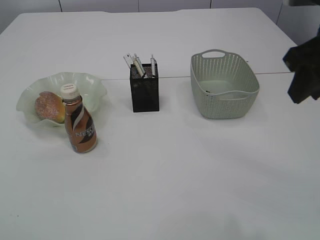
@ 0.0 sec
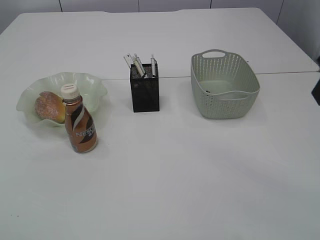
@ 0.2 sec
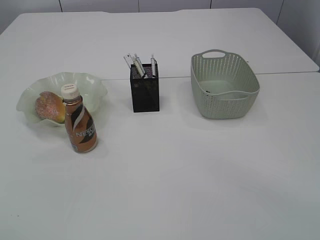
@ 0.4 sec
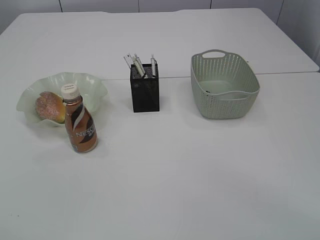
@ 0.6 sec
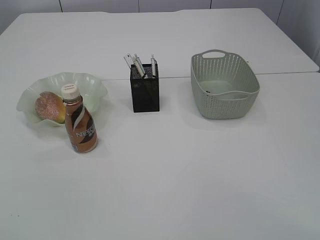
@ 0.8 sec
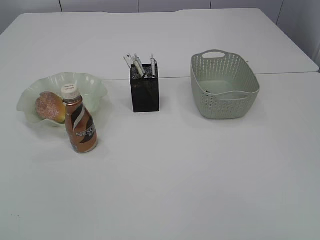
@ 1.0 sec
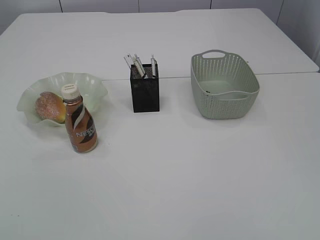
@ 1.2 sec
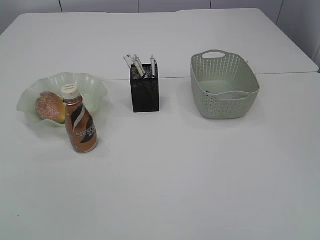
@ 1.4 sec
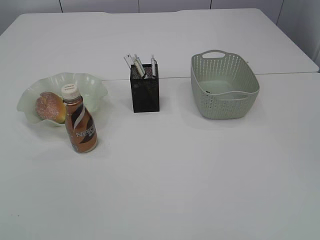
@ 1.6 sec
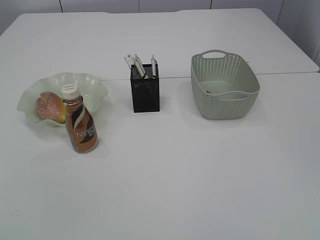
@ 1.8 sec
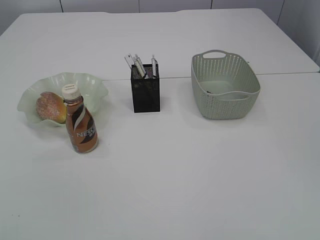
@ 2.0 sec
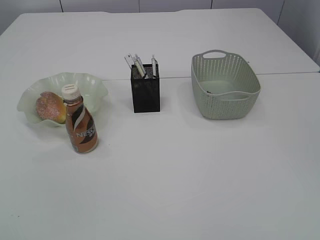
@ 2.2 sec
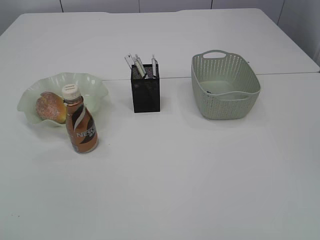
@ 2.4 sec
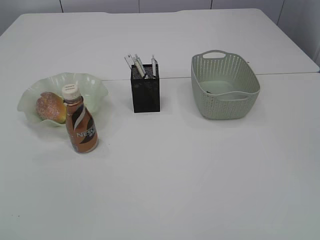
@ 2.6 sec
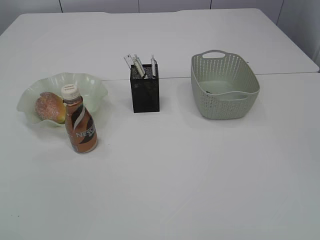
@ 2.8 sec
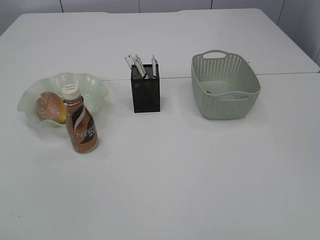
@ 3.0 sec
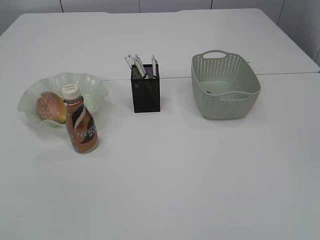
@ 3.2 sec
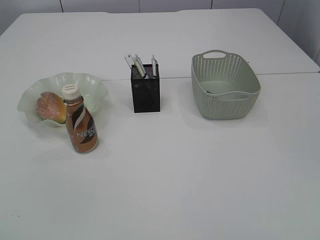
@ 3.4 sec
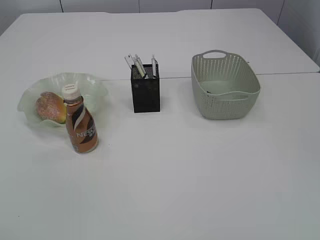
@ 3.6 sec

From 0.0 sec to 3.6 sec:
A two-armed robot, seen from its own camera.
From 0.0 sec to 1.8 sec: The right gripper moves backward, approximately 30 cm.
